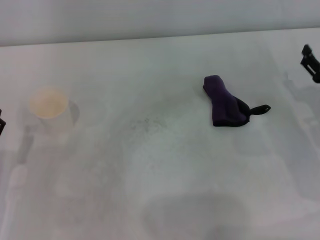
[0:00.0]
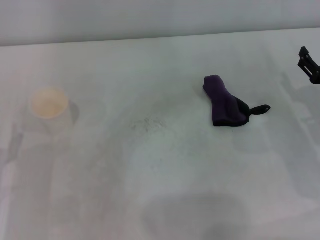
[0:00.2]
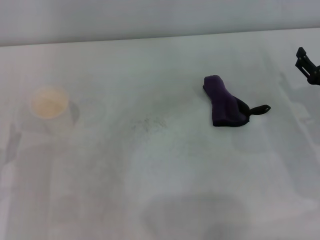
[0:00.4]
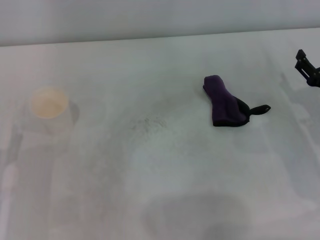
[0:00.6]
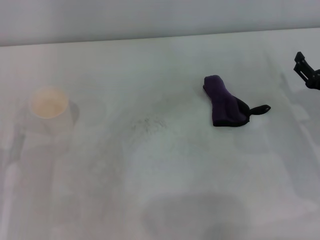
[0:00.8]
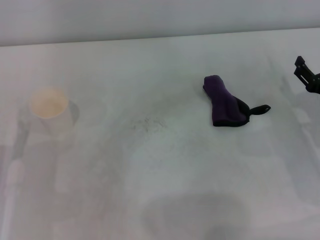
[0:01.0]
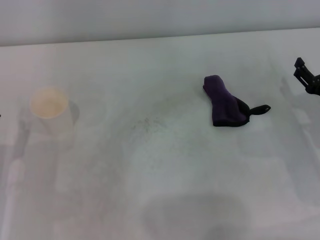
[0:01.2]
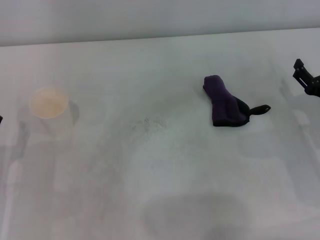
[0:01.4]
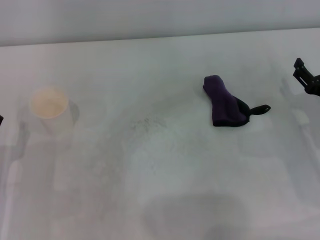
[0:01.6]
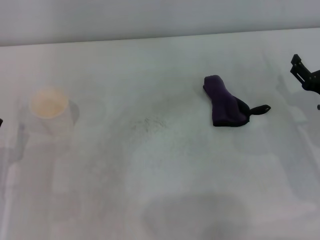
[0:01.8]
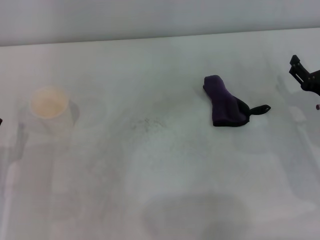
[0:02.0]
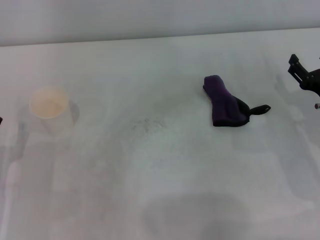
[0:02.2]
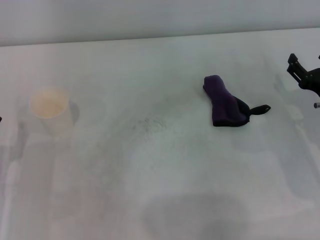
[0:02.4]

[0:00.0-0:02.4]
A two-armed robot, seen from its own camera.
0:00.0 to 0:01.2: There are only small adjustments of the grippers.
0:01.2 to 0:02.4: Neither gripper changes place.
